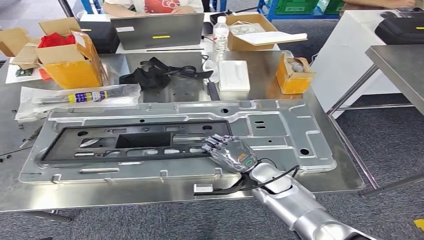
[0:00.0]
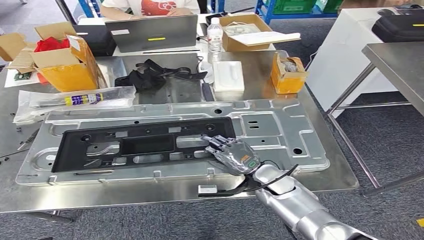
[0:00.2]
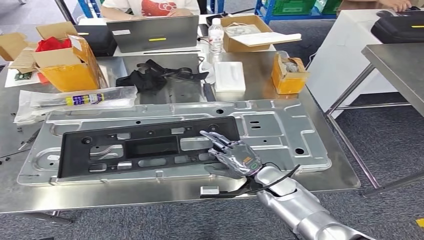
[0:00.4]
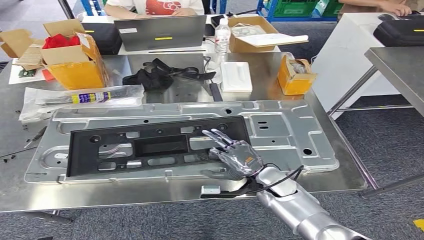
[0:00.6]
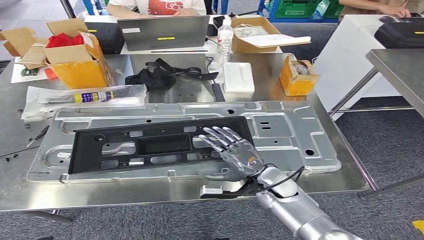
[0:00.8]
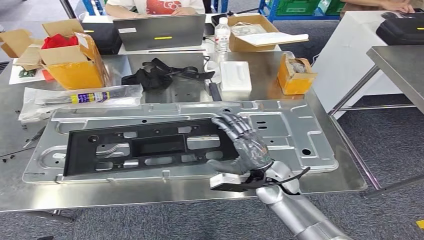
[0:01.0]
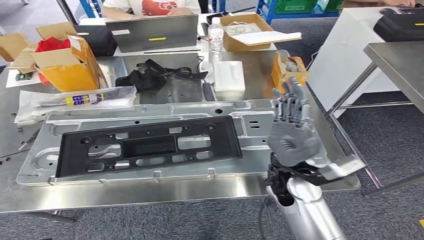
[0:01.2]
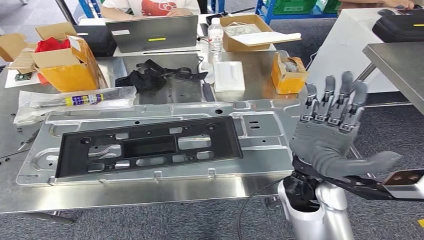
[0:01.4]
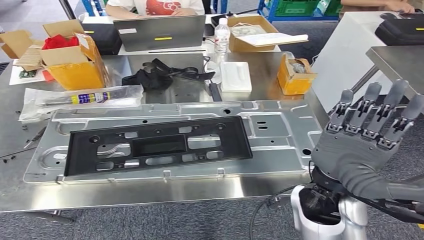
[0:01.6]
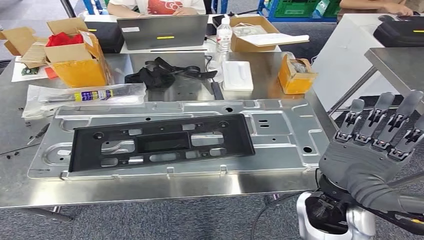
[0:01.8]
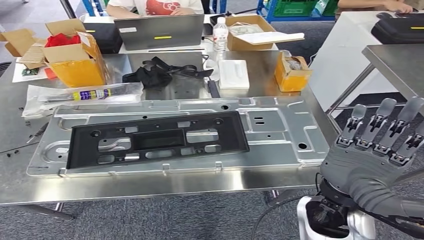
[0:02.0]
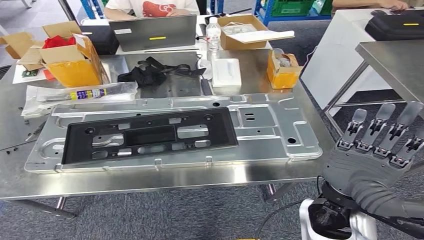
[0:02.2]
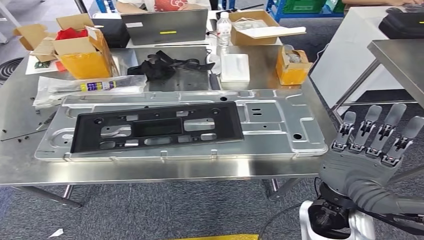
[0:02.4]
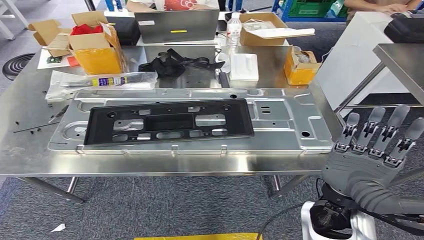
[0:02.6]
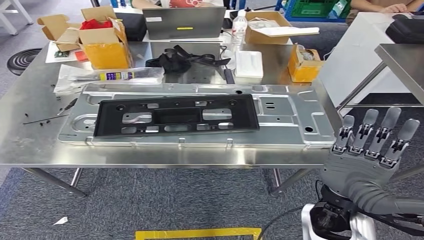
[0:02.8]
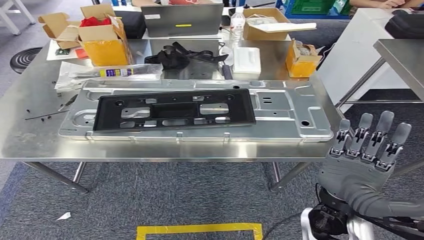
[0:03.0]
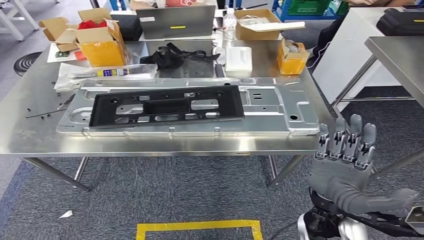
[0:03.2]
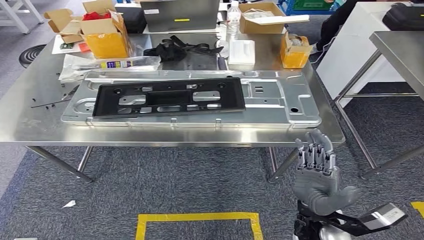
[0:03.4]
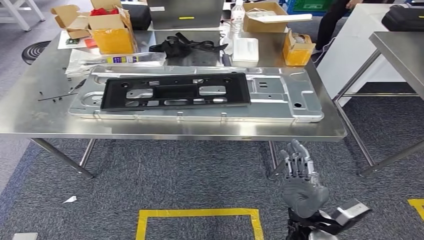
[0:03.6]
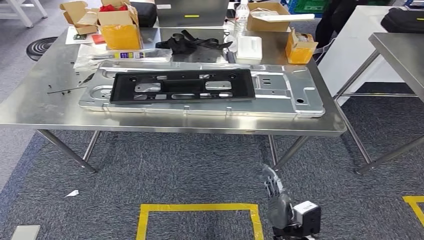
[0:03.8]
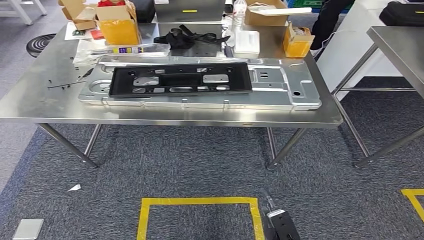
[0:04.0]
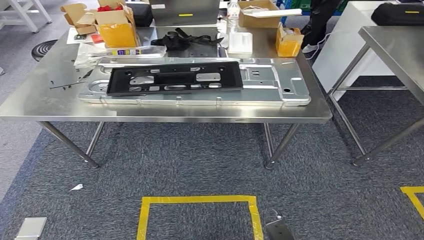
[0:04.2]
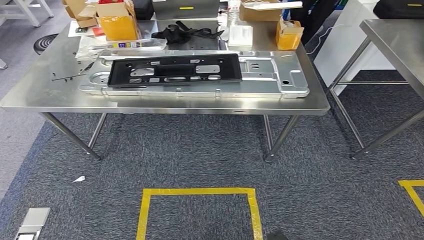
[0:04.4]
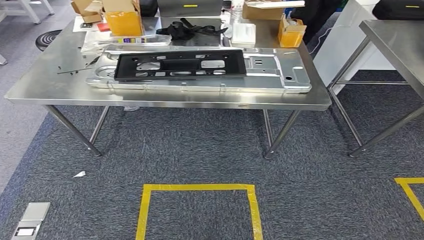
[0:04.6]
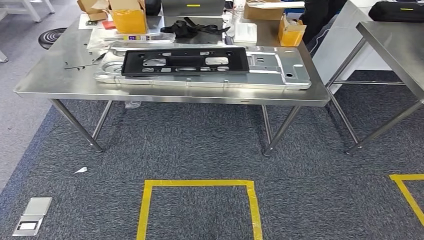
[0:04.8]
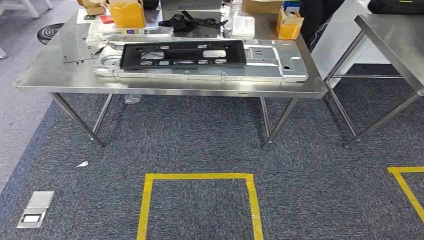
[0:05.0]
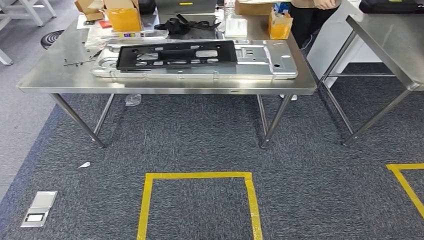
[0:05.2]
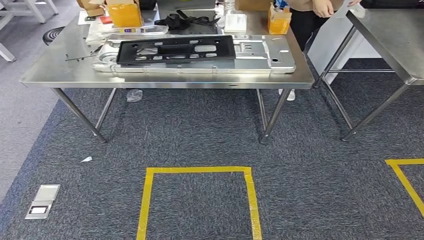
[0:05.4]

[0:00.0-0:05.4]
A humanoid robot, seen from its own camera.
Step, 0:00.0 to 0:03.2: Insert the small component into the corresponding slot on the workbench.
Step, 0:03.4 to 0:05.4: Return to the initial position at the workbench.
